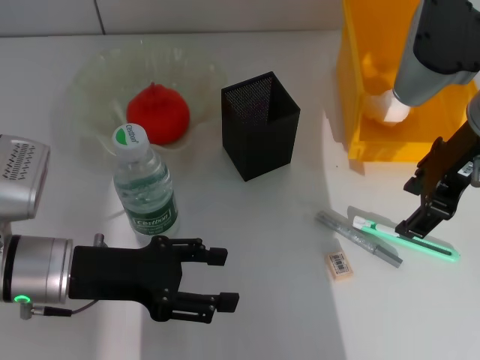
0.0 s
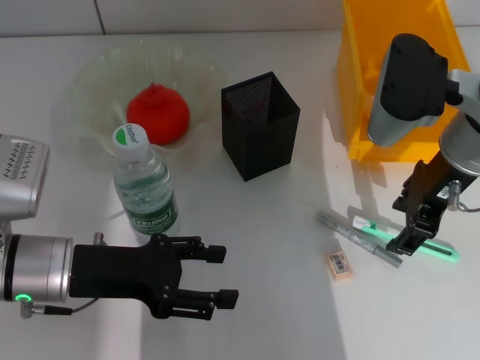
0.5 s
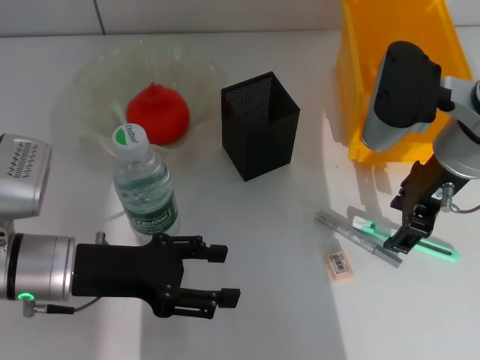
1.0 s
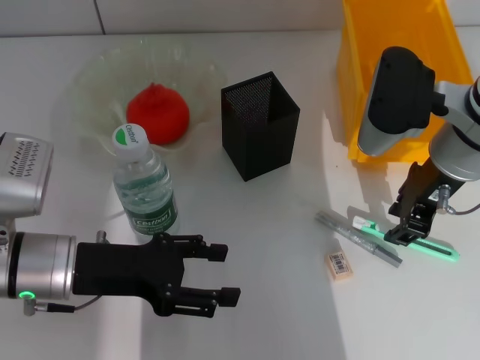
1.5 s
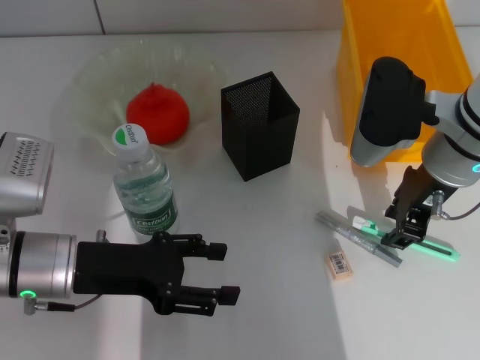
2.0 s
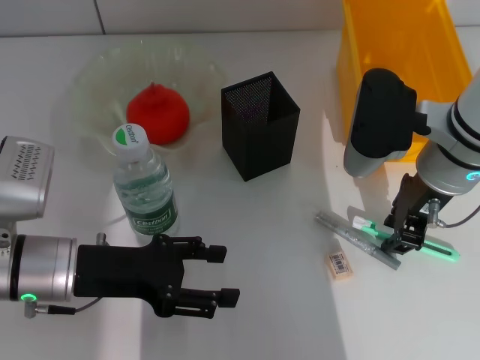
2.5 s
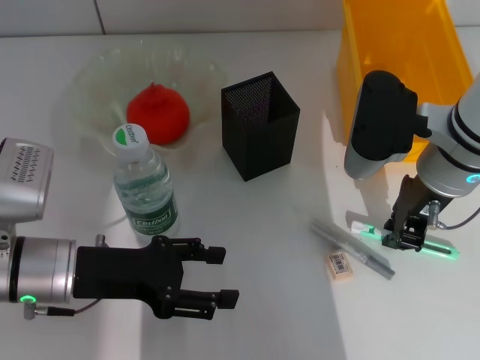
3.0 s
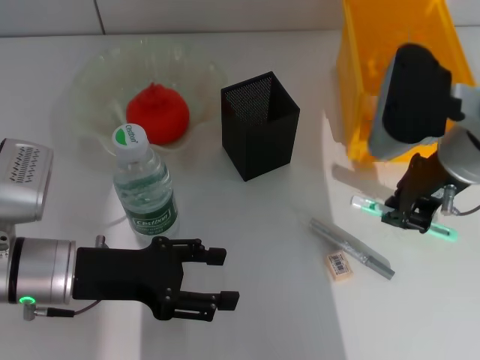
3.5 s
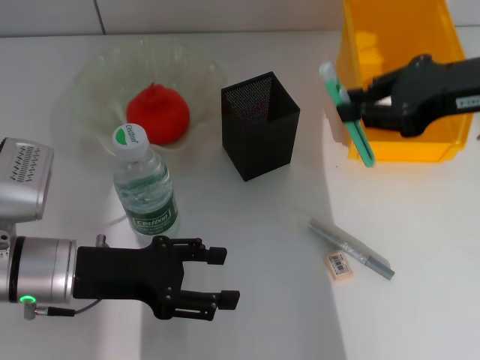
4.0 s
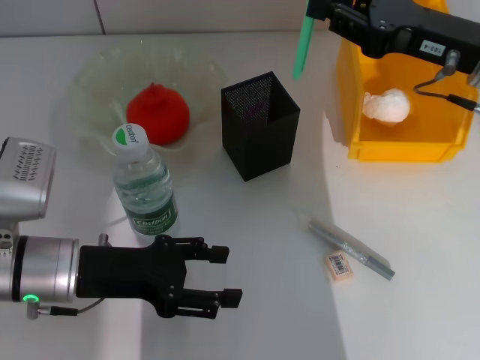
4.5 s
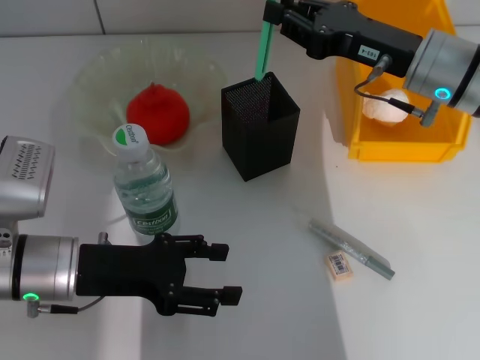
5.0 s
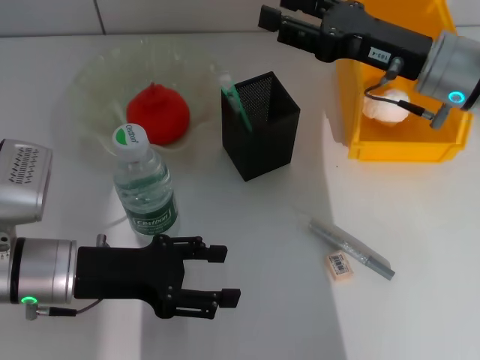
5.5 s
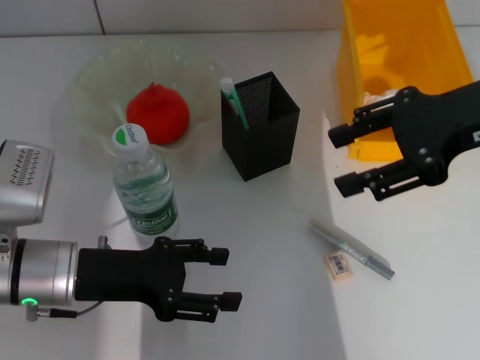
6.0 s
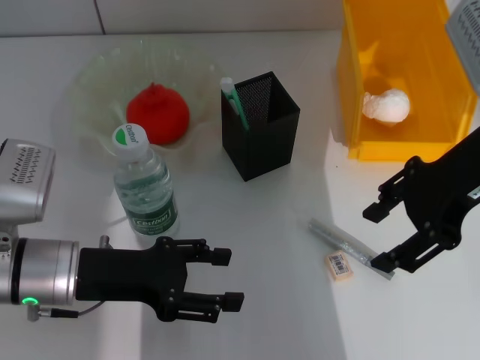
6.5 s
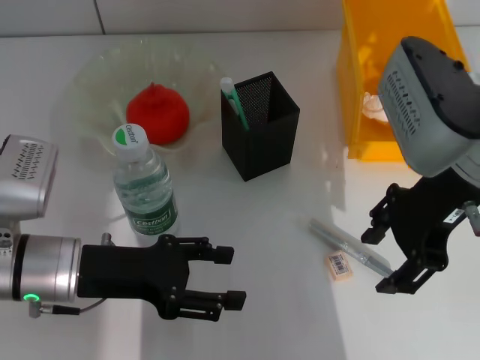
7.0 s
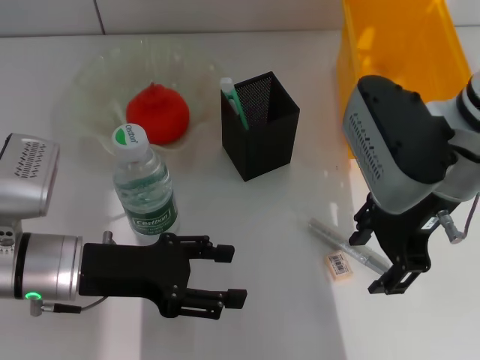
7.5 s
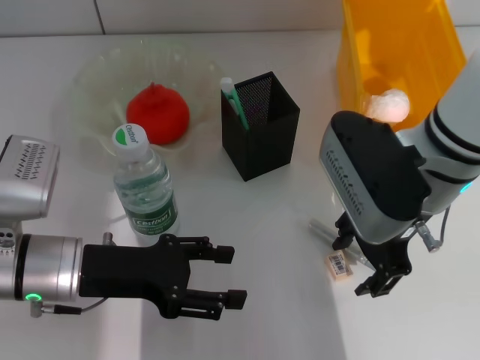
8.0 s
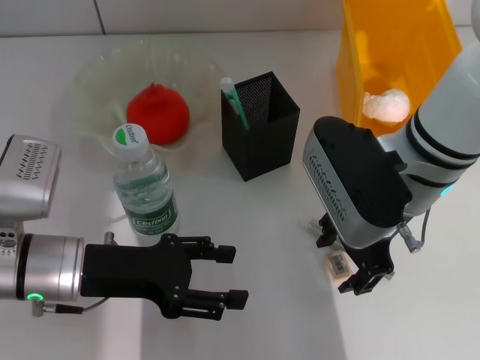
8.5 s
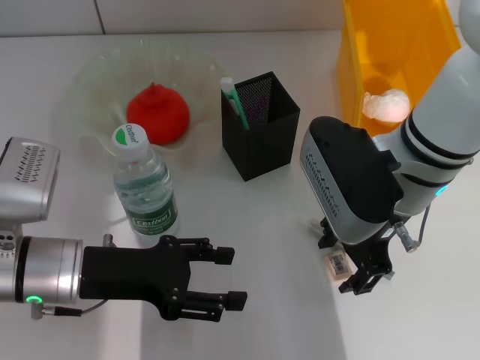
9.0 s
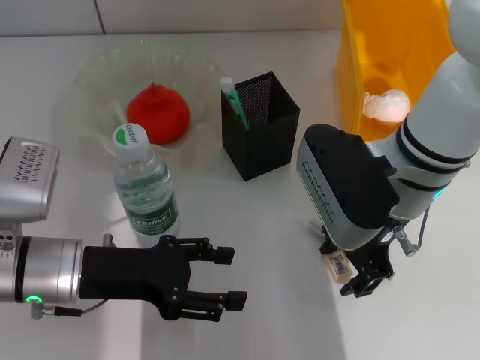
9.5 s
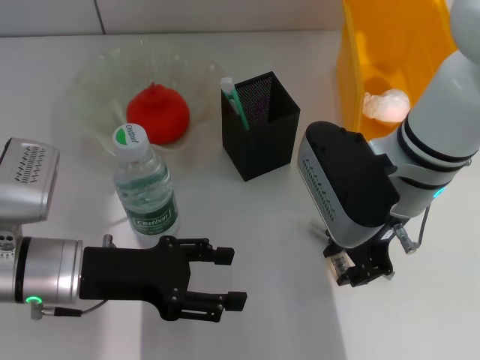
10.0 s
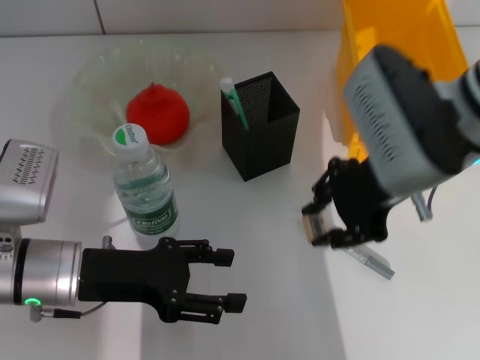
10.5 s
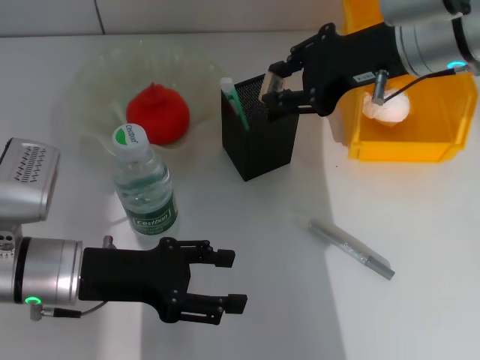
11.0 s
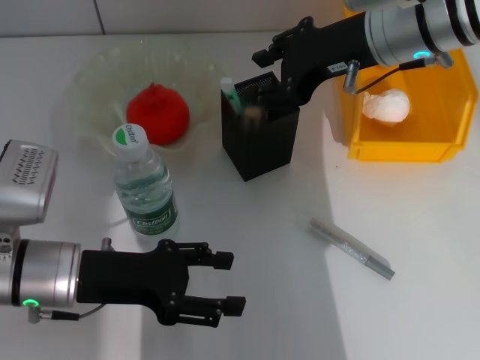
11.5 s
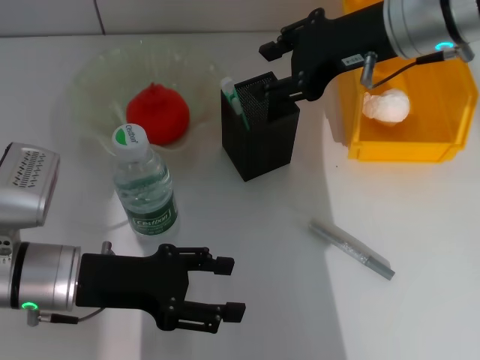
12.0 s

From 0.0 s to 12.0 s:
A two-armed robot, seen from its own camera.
Step, from 0.0 s to 3.0 s: Grab the blue utility knife with the right hand.
Step, from 3.5 s to 5.0 s: Place the blue utility knife into the pen holder with the right hand.
Step, from 5.5 s to 10.0 s: Grab the eraser with the right hand.
Step, from 10.5 s to 11.5 s: Put the eraser into the pen holder with the right hand.
From 0.0 s to 2.0 s: The right gripper heads downward, covering roughly 5 cm, and closes its fingers.
From 2.0 s to 4.0 s: The right gripper heads upward and to the right, covering approximately 10 cm, and closes its fingers.
From 4.0 s to 6.0 s: The right gripper travels downward and back again, approximately 10 cm each way, and opens its fingers.
From 6.0 s to 8.0 s: The right gripper moves to the left and downward, approximately 10 cm.
From 8.0 s to 10.0 s: The right gripper closes.
From 10.0 s to 12.0 s: The right gripper moves upward and forward, about 10 cm.

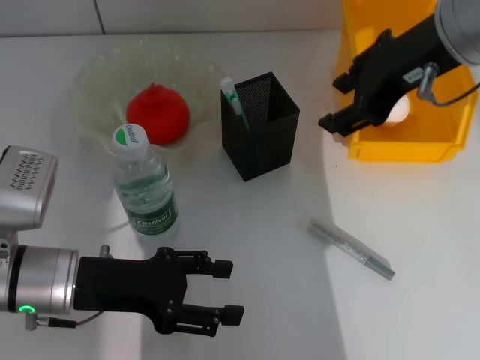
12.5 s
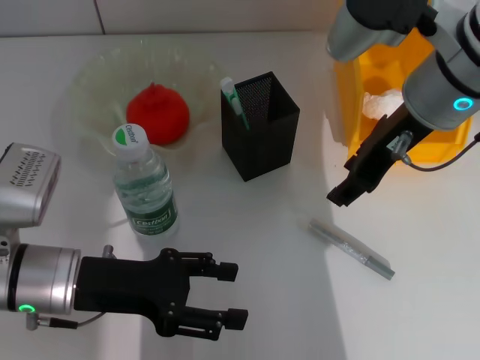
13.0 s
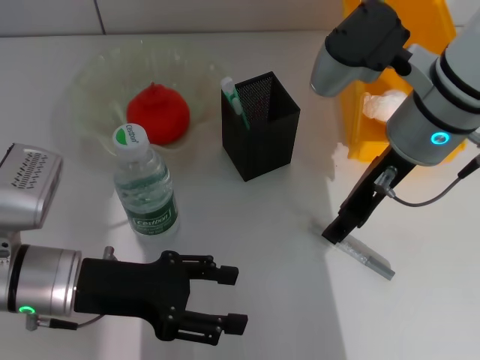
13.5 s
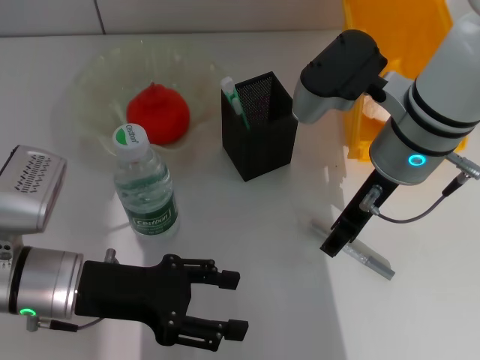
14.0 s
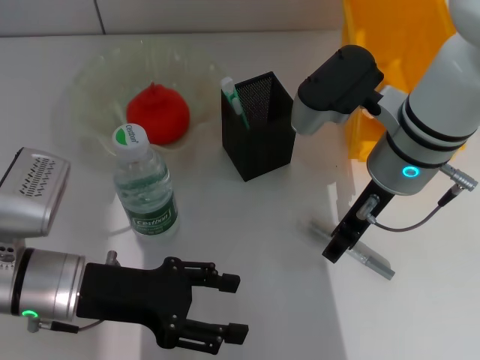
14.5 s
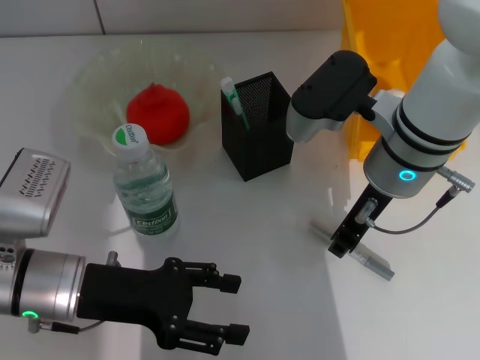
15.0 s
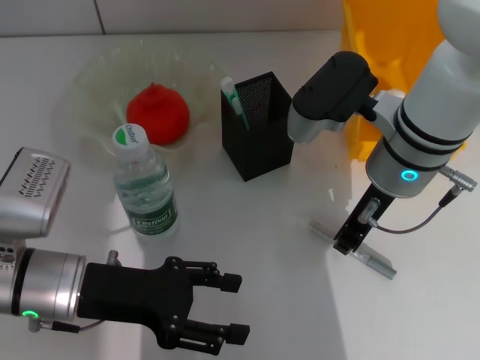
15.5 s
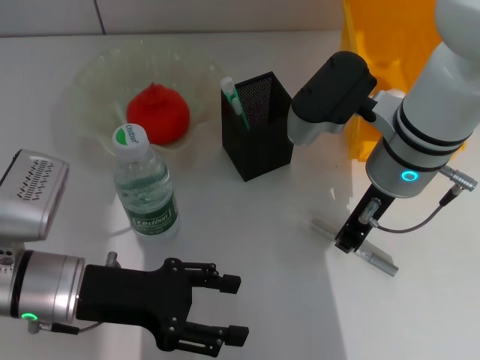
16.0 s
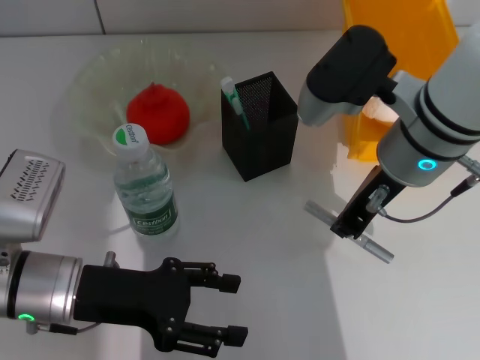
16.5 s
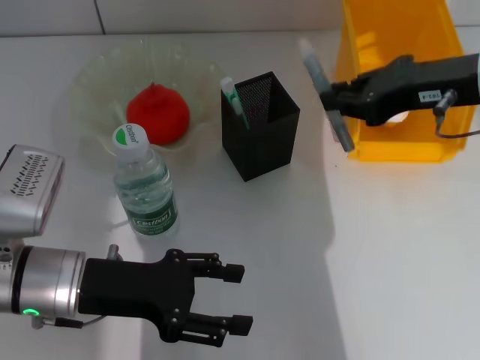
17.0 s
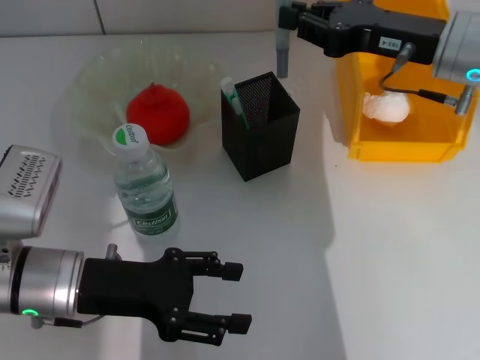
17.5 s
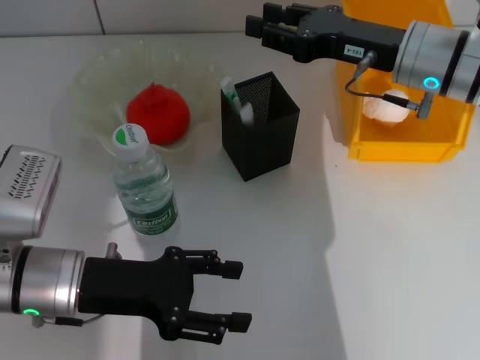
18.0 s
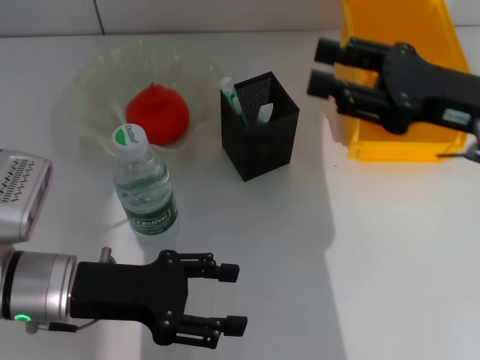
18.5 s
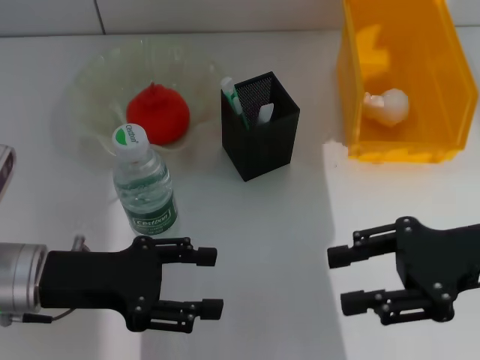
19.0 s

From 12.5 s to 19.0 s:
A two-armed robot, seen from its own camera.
Step, from 12.5 s to 15.5 s: Grab the gray glue with the right hand.
Step, from 16.0 s to 17.5 s: Place the gray glue into the pen holder with the right hand.
From 12.5 s to 14.5 s: The right gripper goes approximately 10 cm downward.
From 14.5 s to 17.0 s: The right gripper heads to the right and upward, covering roughly 10 cm, and closes.
From 17.0 s to 19.0 s: The right gripper goes some 15 cm downward, backward and to the right, and opens.

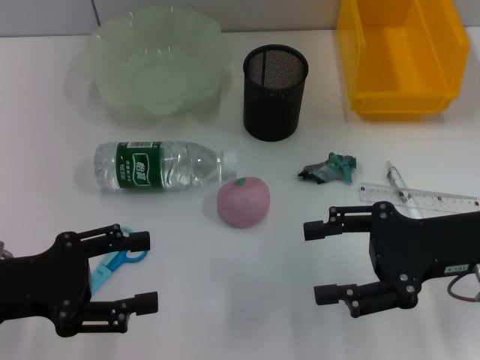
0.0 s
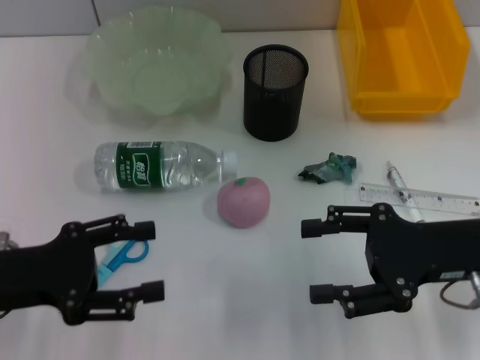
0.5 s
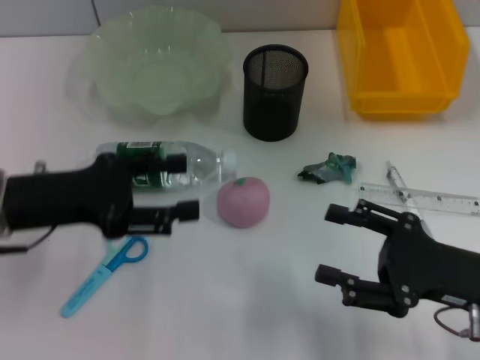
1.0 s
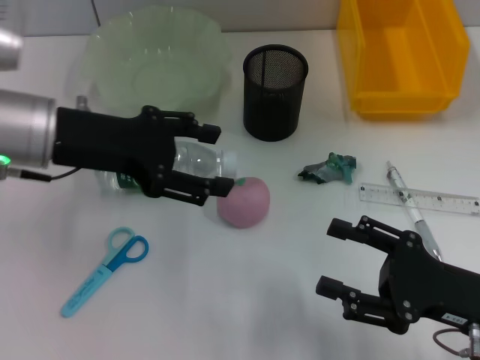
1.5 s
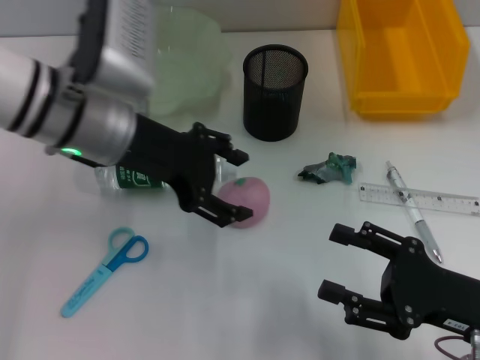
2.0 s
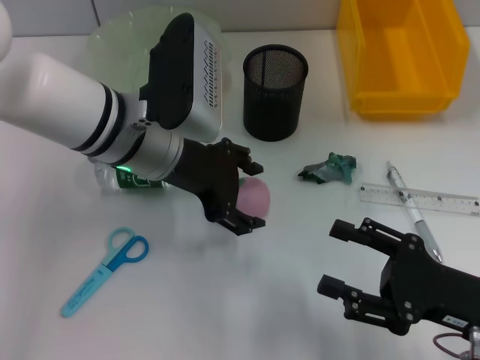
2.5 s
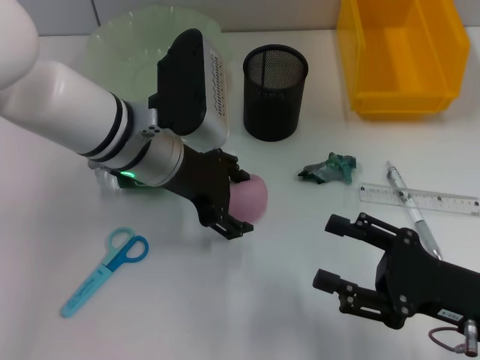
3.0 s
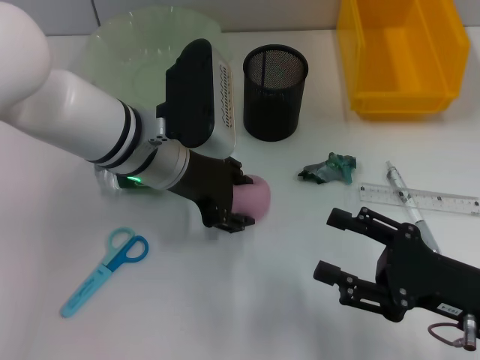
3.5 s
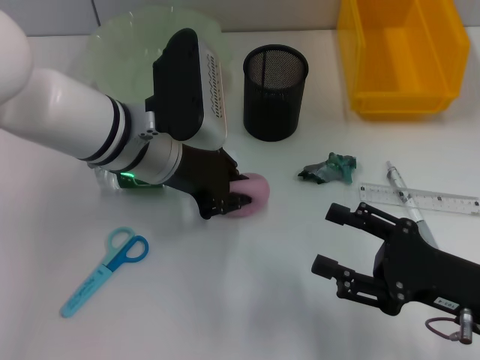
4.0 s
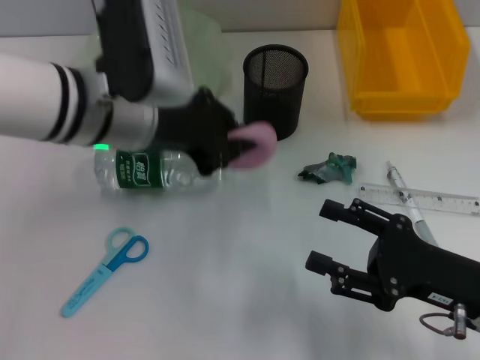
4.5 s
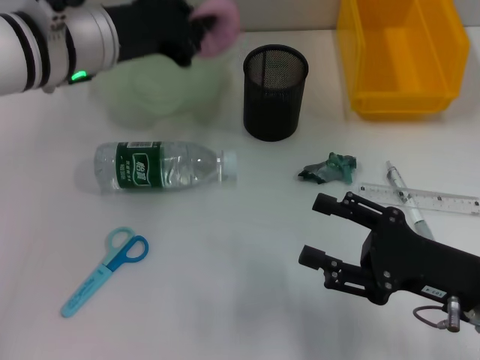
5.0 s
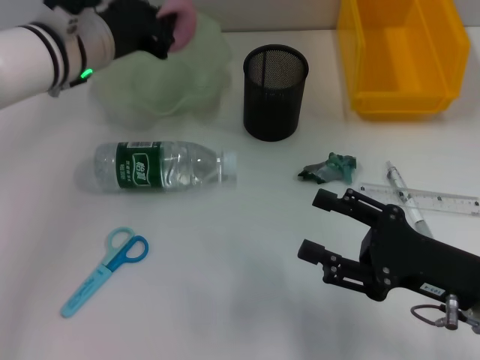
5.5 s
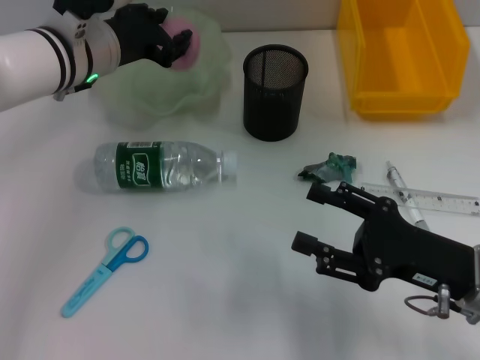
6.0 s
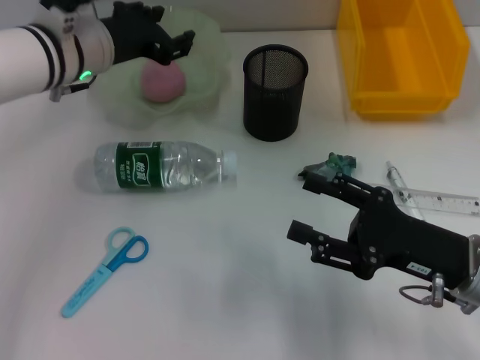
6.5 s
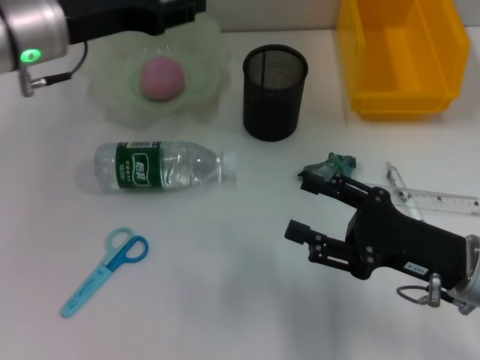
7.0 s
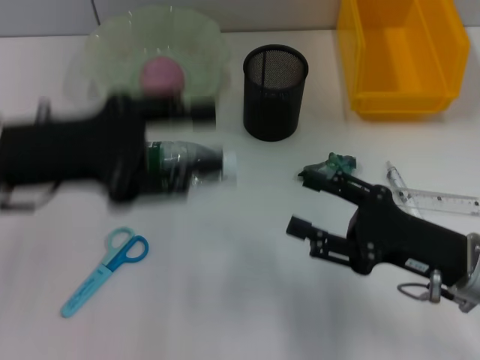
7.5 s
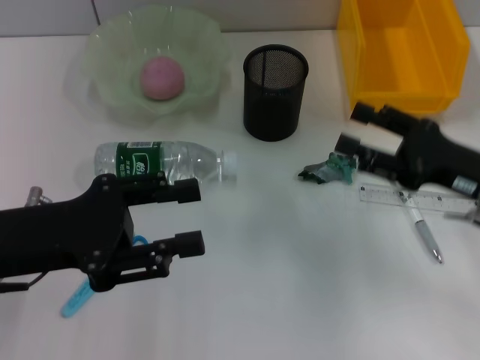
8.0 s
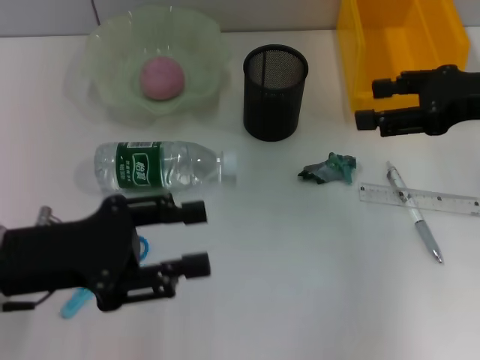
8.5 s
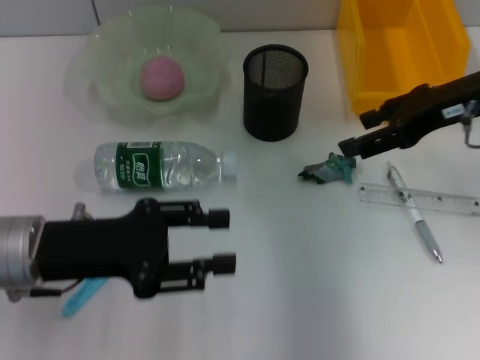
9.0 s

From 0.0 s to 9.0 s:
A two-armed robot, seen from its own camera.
Step, from 0.0 s to 4.0 s: Grab the peach with the left hand.
Step, from 4.5 s to 6.5 s: Place the peach into the fruit bowl with the left hand.
From 0.0 s to 2.0 s: The left gripper moves to the right, forward and upward, some 20 cm; the right gripper heads backward and downward, covering some 10 cm.
From 2.0 s to 4.5 s: The left gripper closes.
From 4.5 s to 7.0 s: The left gripper travels to the left and forward by about 10 cm, and opens.
From 7.0 s to 9.0 s: The left gripper heads backward and downward, covering about 15 cm. Meanwhile the right gripper travels upward and forward by approximately 20 cm.
